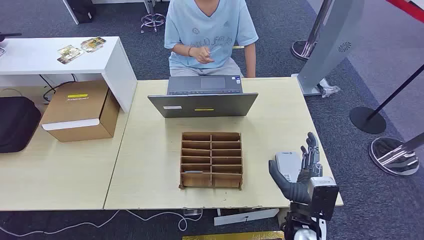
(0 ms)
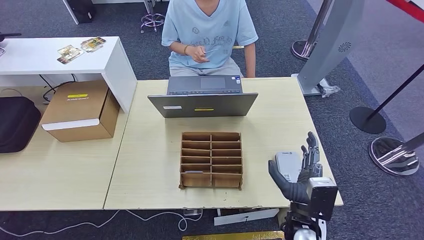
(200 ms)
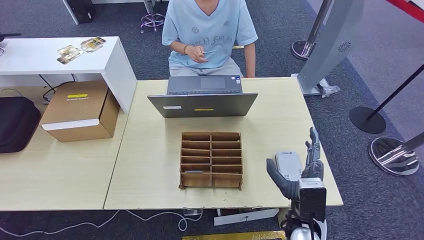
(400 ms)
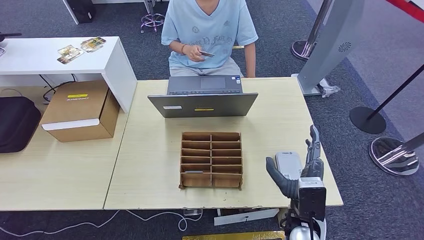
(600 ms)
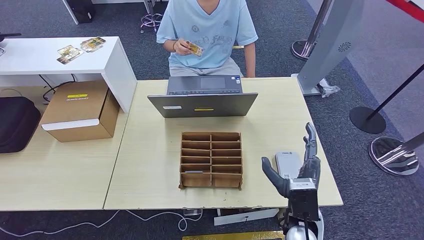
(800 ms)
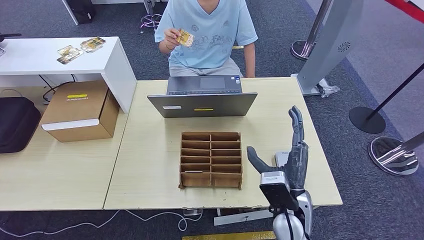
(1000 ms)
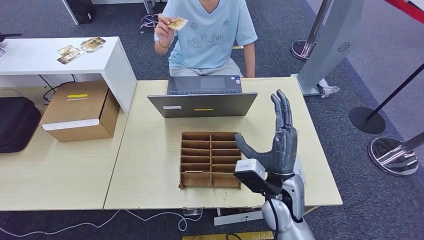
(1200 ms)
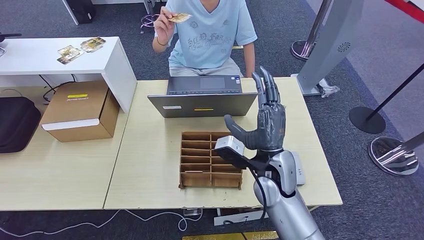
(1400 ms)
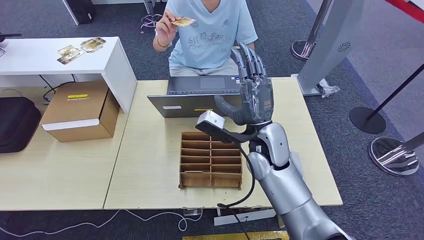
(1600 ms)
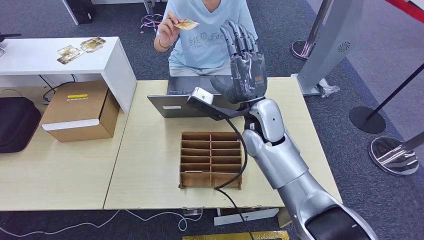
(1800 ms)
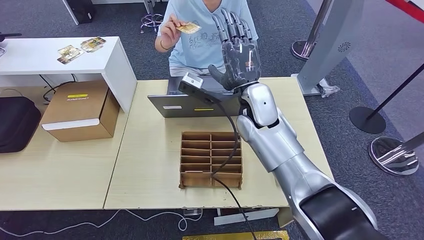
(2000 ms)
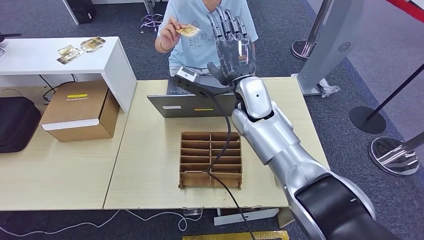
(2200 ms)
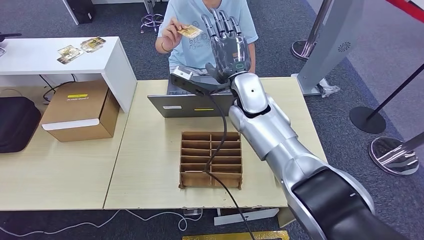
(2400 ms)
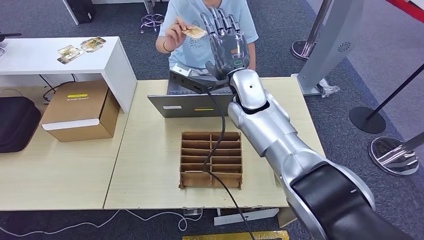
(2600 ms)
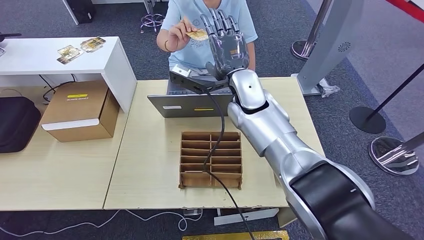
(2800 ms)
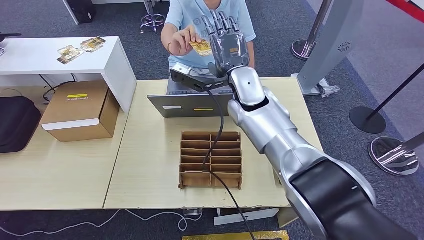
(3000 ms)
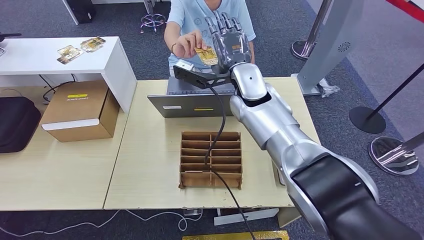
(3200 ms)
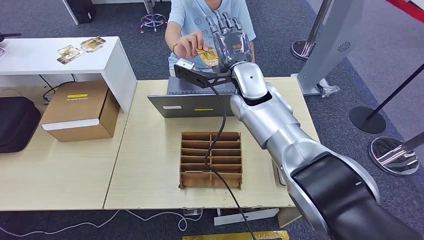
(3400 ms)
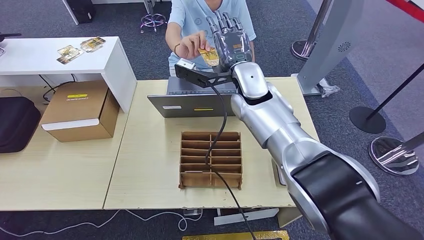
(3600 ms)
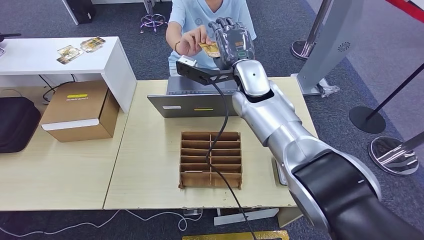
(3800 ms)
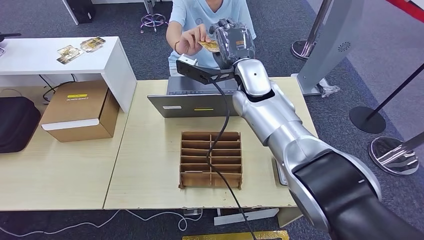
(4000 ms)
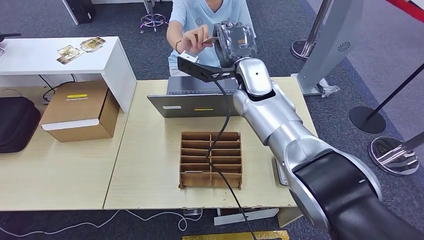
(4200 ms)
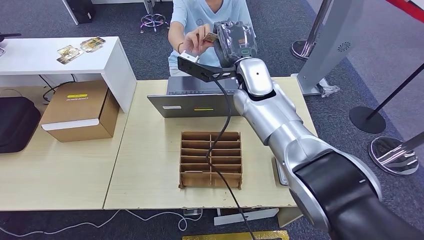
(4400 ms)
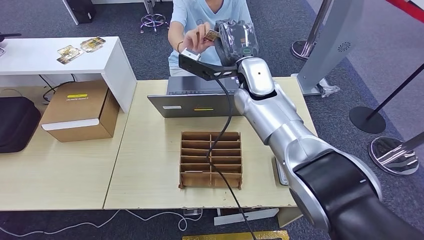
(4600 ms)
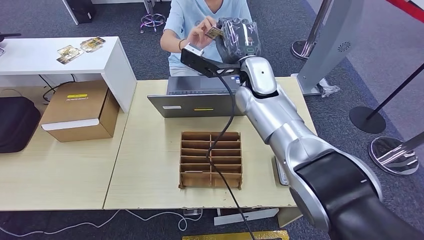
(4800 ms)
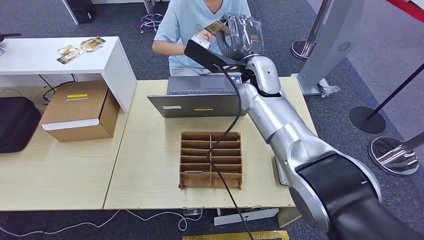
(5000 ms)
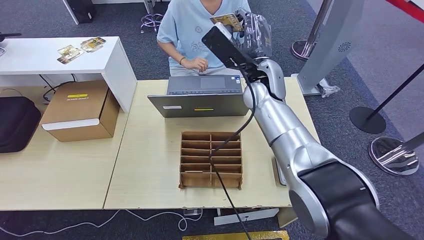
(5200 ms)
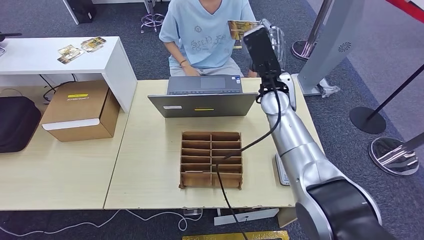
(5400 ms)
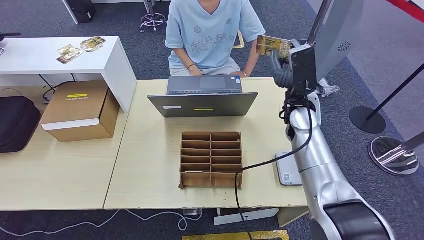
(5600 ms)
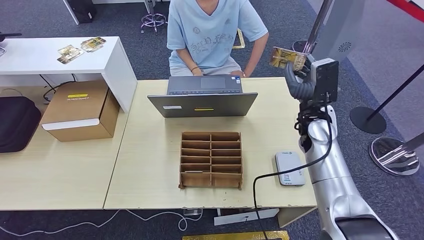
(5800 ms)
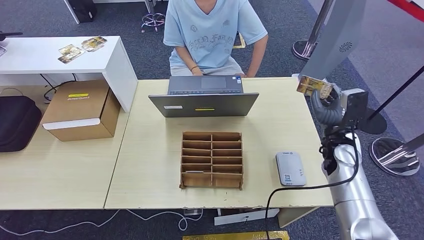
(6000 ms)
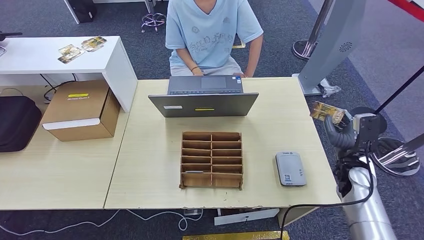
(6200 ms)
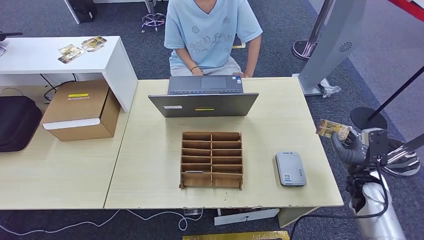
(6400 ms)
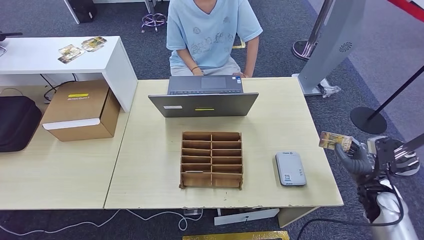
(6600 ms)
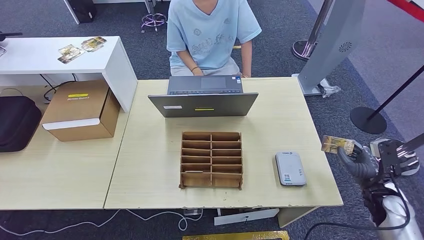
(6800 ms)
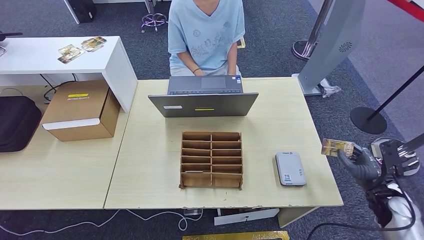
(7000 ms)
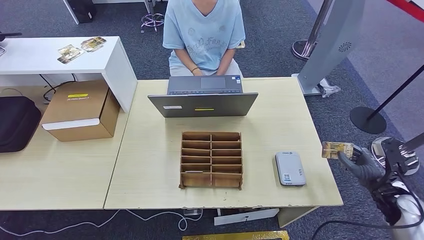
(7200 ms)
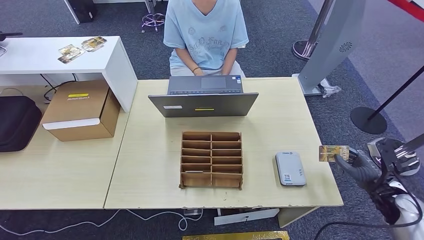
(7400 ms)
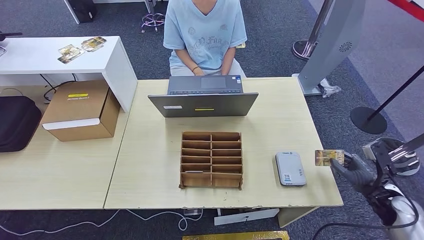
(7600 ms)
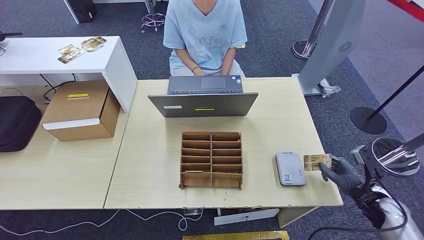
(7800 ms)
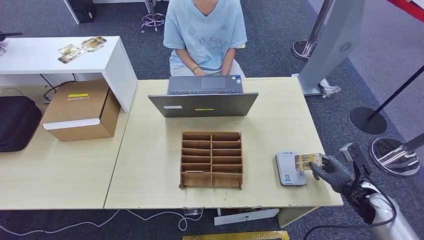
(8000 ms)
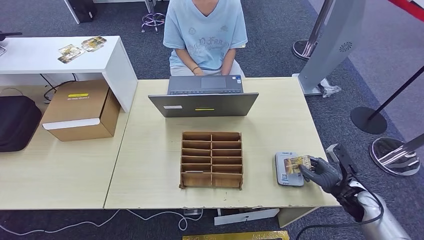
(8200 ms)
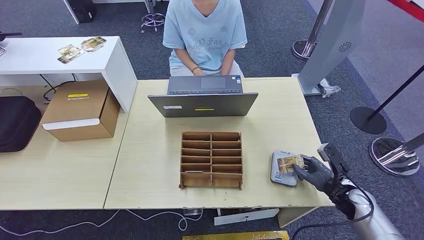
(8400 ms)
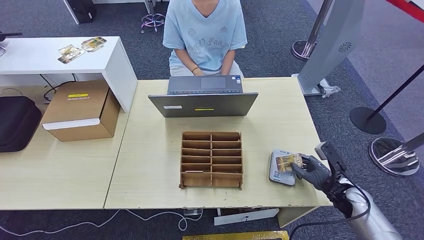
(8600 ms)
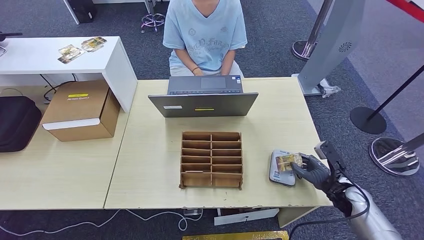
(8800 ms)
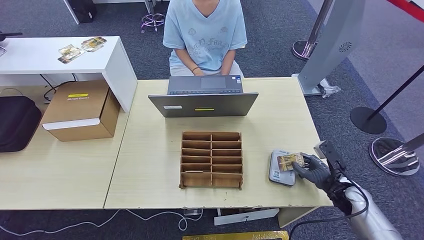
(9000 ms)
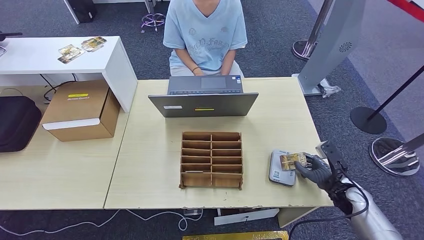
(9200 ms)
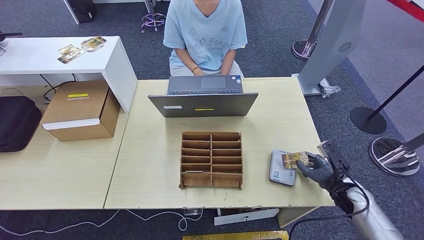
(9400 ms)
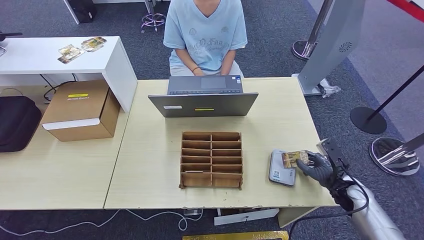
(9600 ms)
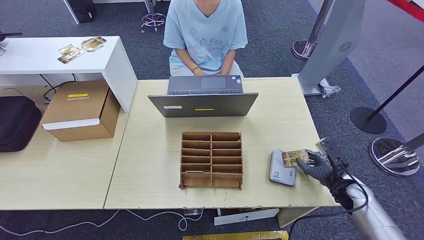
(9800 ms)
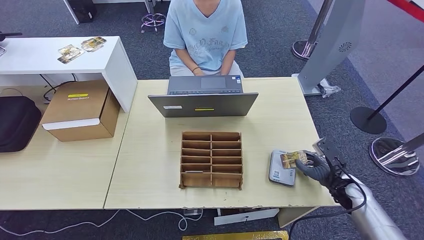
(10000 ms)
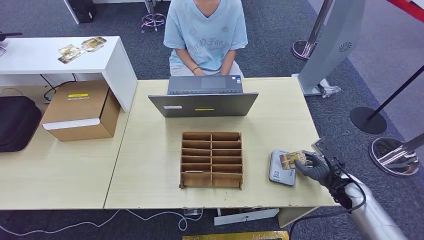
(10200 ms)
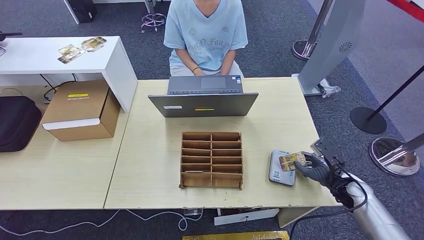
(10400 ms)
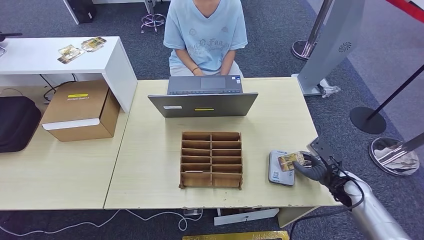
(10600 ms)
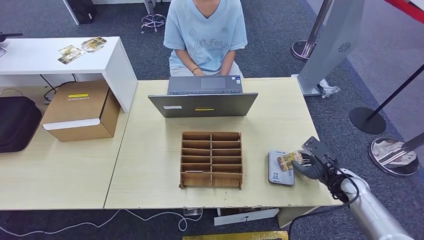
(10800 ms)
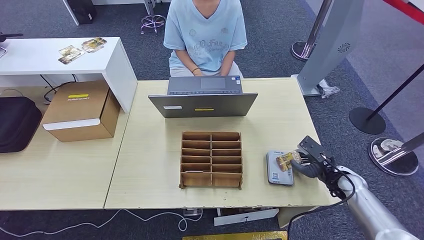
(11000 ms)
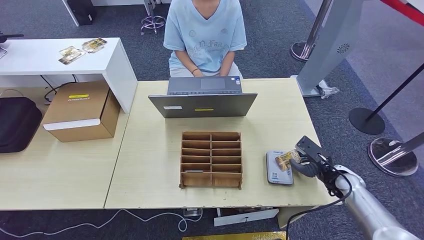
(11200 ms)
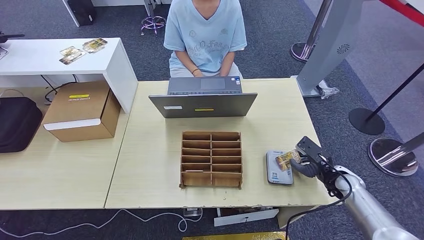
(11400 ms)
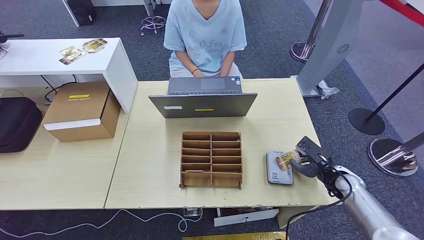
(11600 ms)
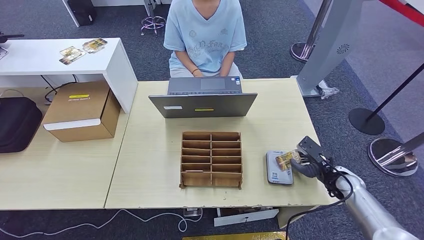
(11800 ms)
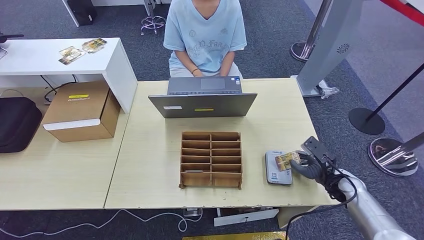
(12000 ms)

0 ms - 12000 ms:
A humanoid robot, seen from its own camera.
Step, 0 ms - 5000 ms: Take the ID card from the person's hand.
Step, 5200 ms - 10600 ms: Place the ID card on the card reader.
1600 ms - 3000 ms: The right hand travels forward and upward by about 10 cm.
3000 ms - 4400 ms: The hands move only a little.
6000 ms - 7600 ms: The right hand shifts approximately 20 cm to the right, backward and downward.
7600 ms - 9000 ms: The right hand shifts approximately 10 cm to the left.
9000 ms - 10400 ms: The hands move only a little.
10400 ms - 12000 ms: The hands make only small movements.

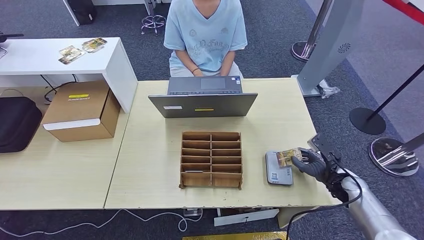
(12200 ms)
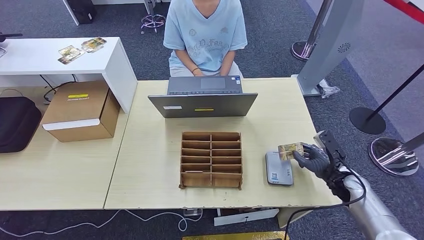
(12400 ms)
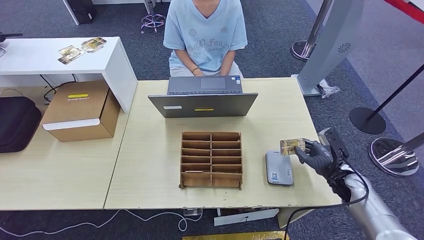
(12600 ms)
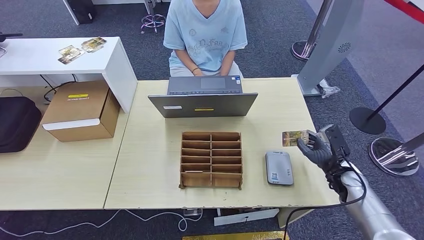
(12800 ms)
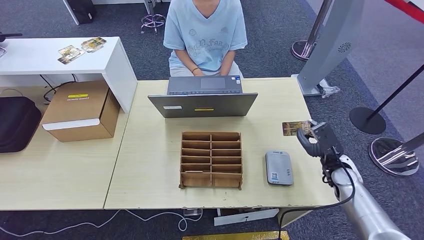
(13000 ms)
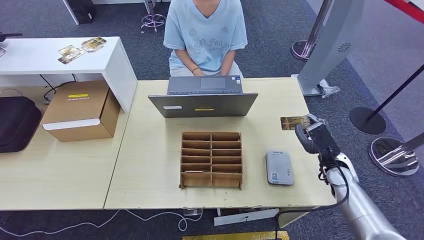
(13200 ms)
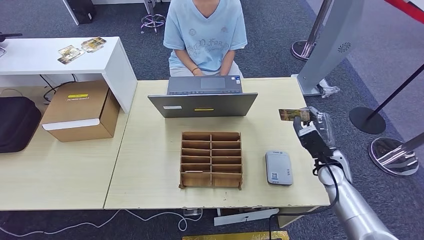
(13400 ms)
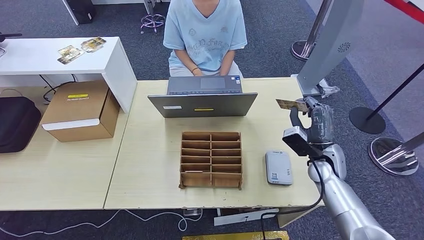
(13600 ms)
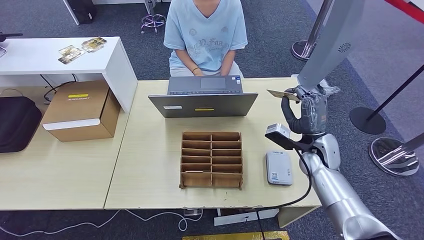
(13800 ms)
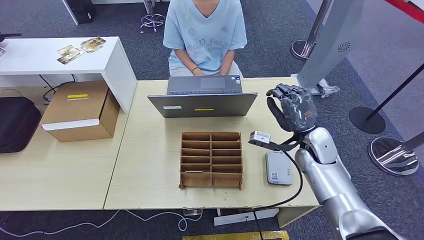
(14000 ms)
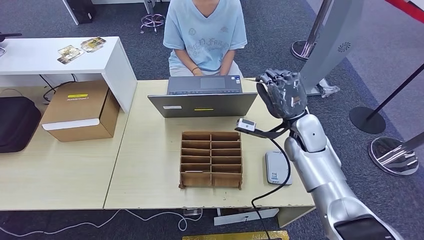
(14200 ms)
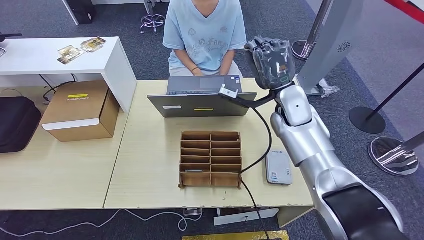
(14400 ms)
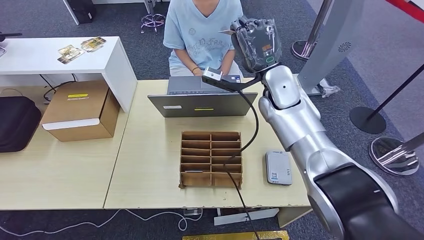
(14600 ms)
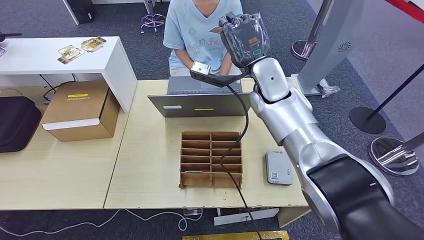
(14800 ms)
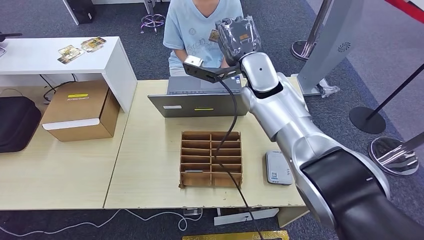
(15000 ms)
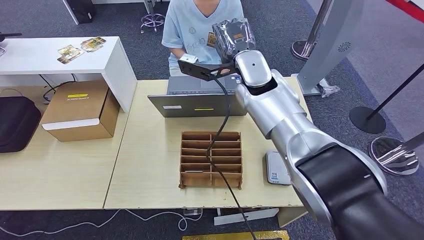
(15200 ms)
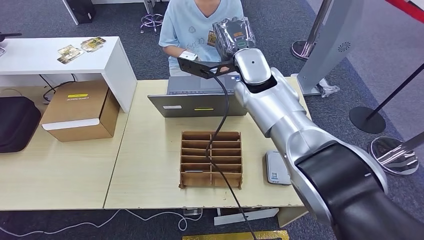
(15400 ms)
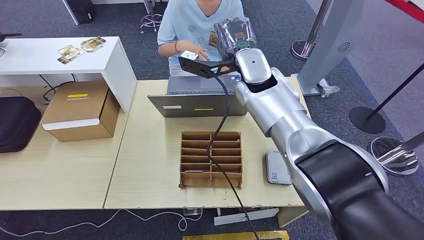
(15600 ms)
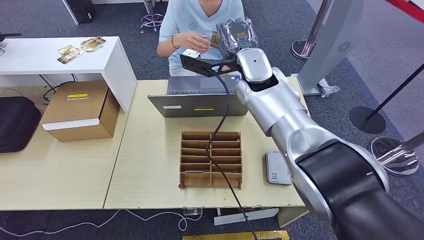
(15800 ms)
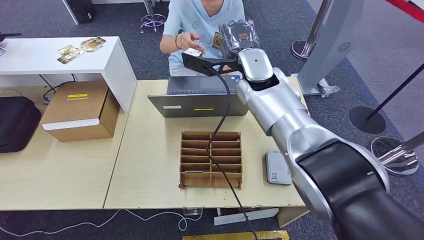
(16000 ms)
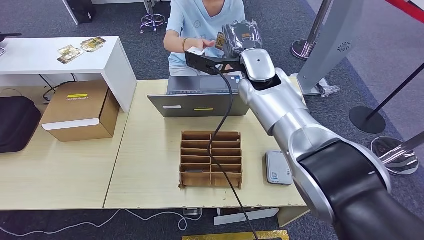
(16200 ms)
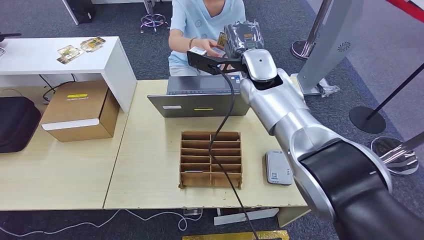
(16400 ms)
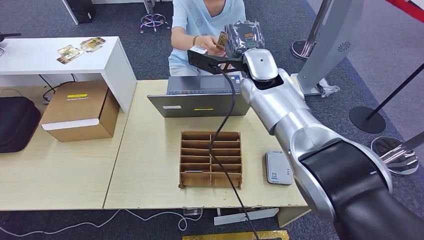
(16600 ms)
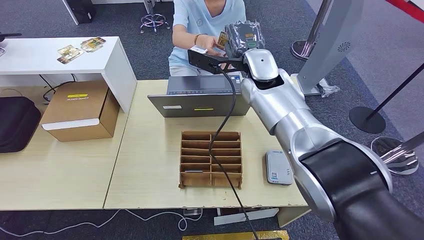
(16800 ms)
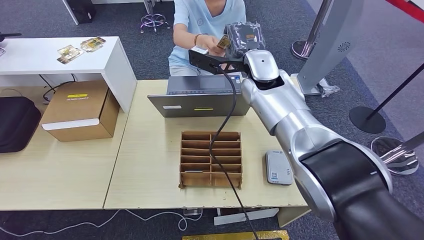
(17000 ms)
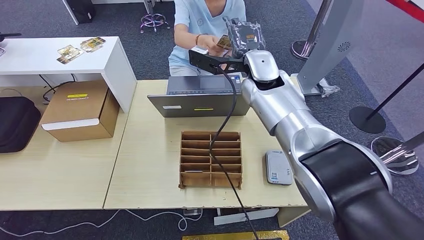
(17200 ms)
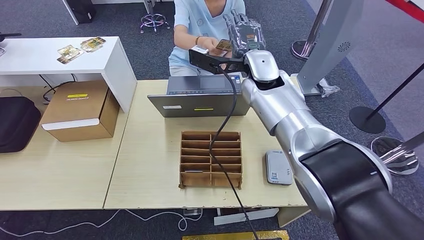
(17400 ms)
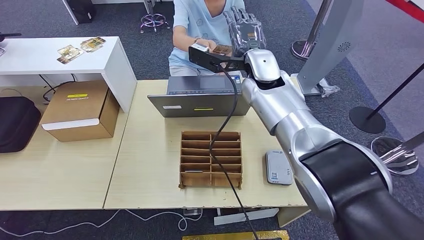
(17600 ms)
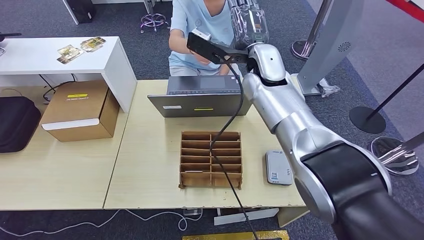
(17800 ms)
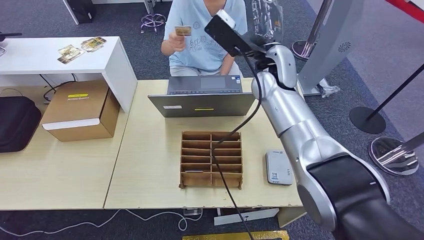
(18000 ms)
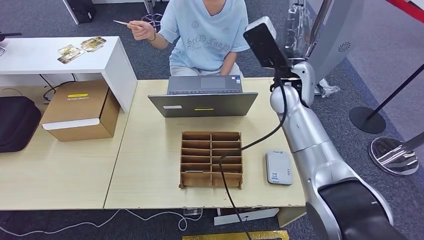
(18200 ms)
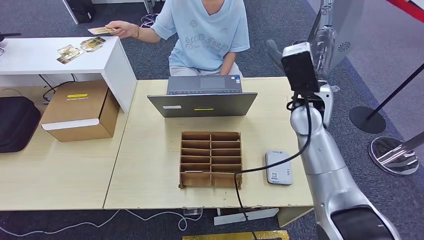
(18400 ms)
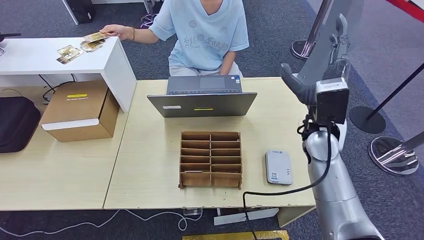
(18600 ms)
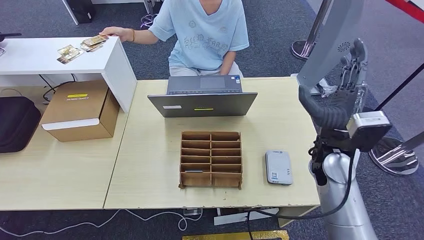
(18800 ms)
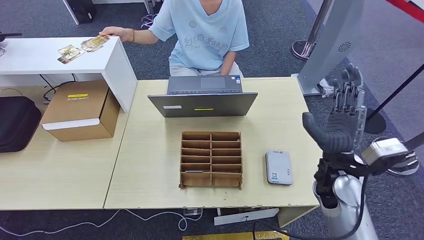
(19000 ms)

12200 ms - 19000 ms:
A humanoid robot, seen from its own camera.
Step, 12200 ms - 18600 ms: Hand the ID card to the person.
12200 ms - 13600 ms: The right hand heads to the left and upward, covering some 10 cm.
13600 ms - 15000 ms: The right hand goes some 30 cm to the left, upward and forward.
15000 ms - 17600 ms: The hands move only a little.
17600 ms - 19000 ms: The right hand moves backward, to the right and downward, roughly 30 cm.
